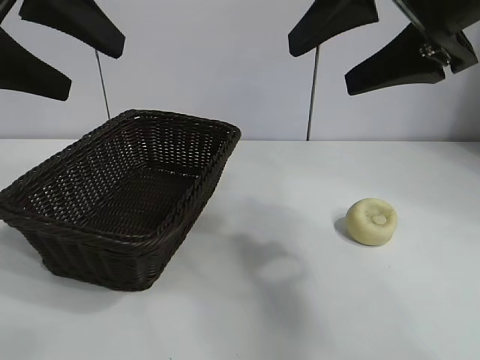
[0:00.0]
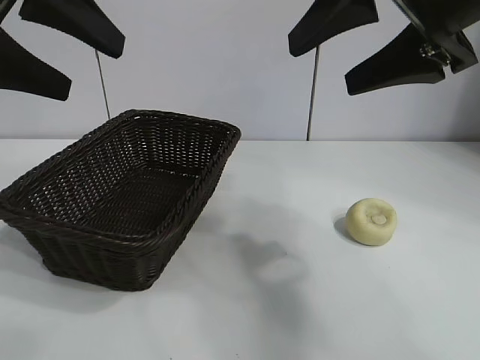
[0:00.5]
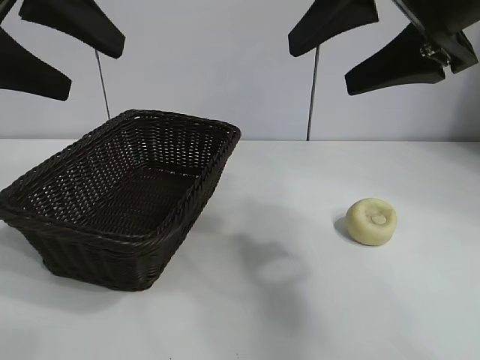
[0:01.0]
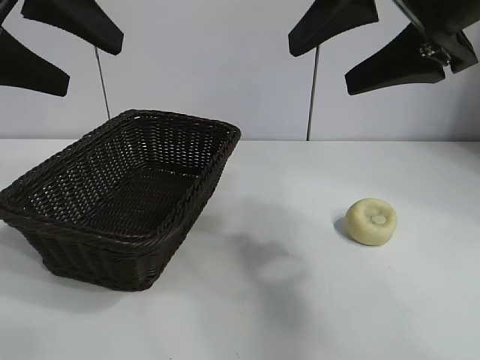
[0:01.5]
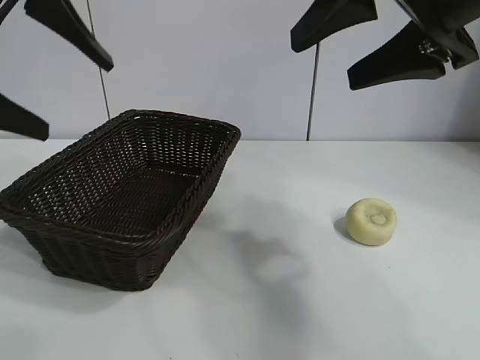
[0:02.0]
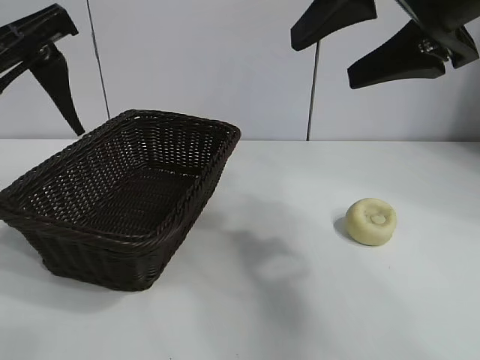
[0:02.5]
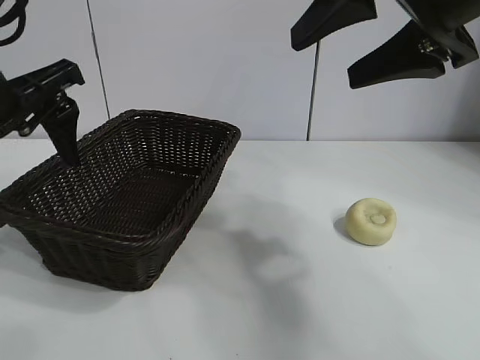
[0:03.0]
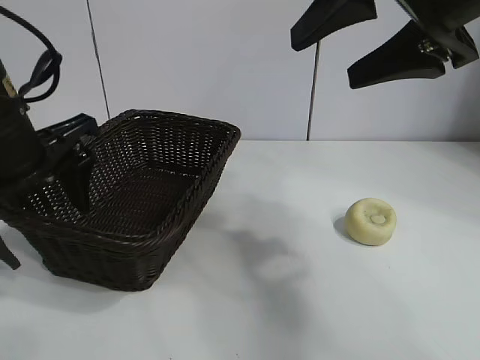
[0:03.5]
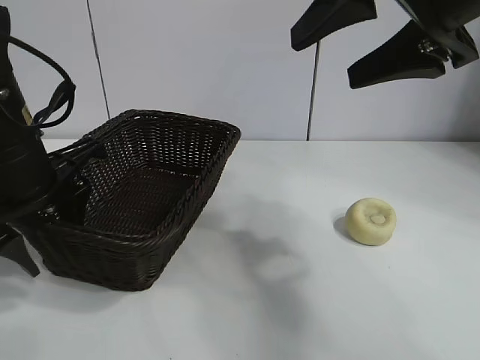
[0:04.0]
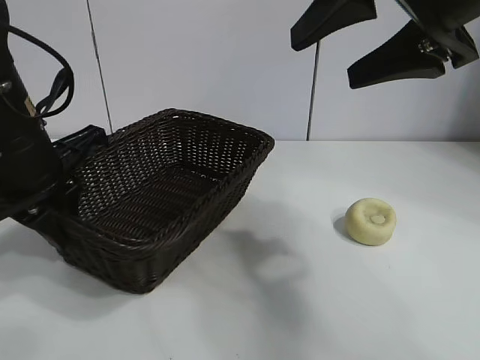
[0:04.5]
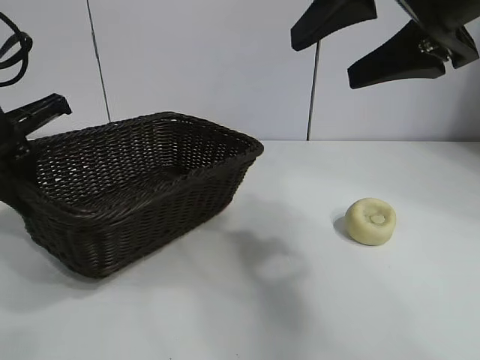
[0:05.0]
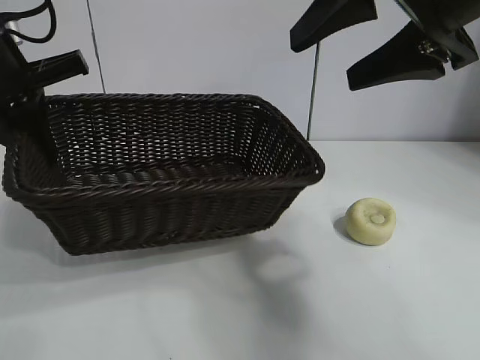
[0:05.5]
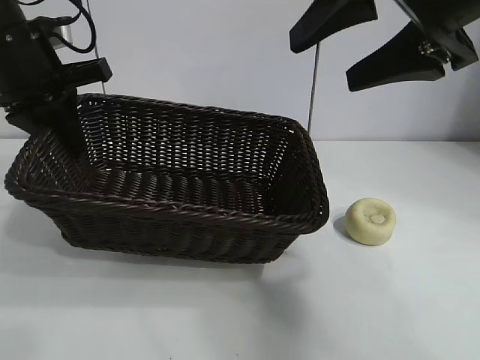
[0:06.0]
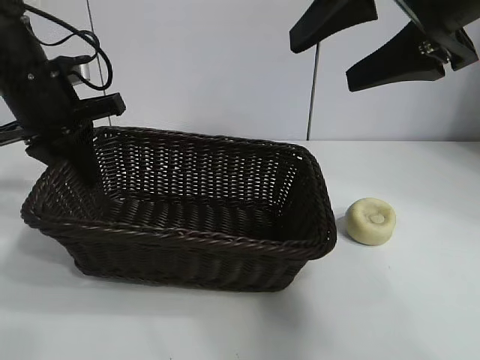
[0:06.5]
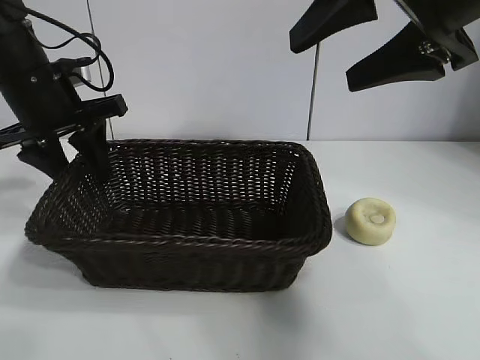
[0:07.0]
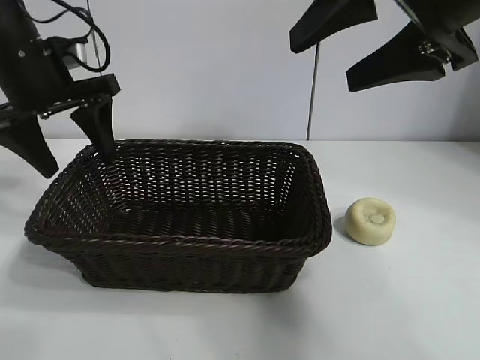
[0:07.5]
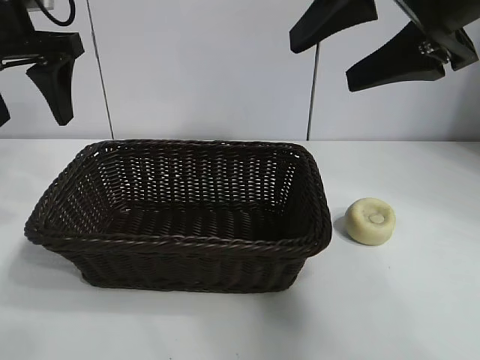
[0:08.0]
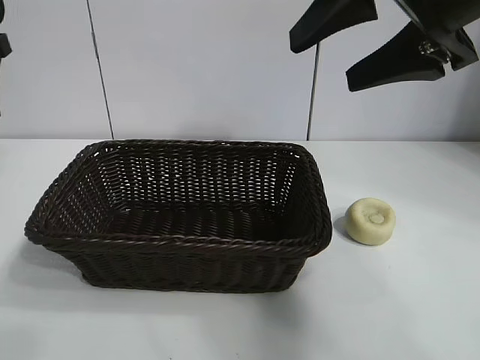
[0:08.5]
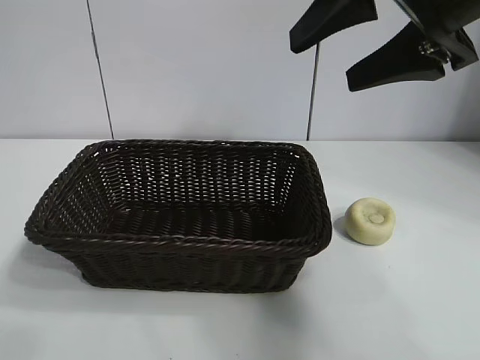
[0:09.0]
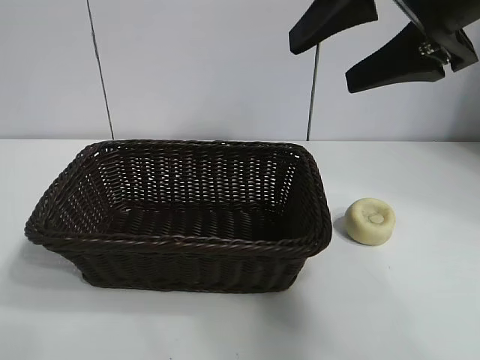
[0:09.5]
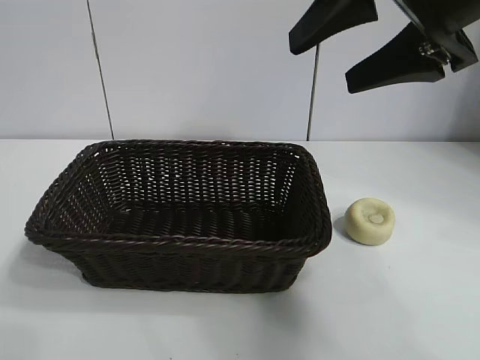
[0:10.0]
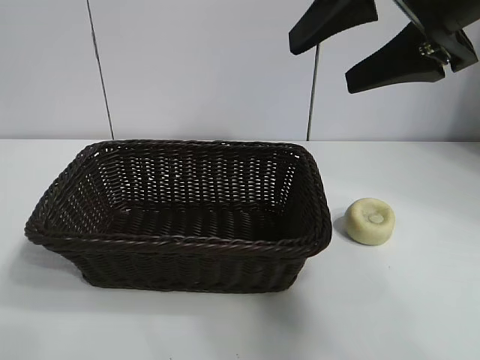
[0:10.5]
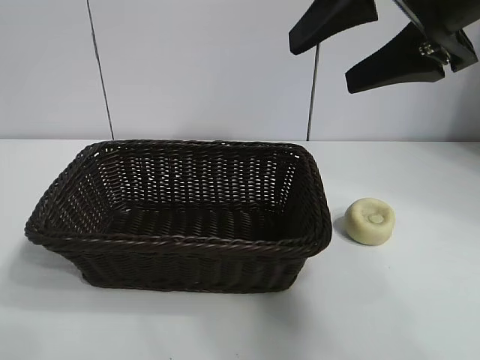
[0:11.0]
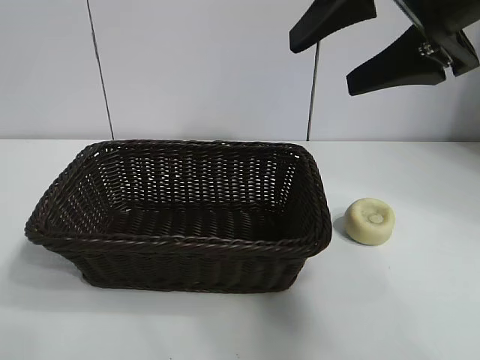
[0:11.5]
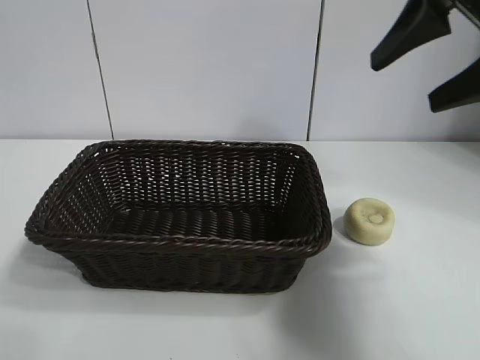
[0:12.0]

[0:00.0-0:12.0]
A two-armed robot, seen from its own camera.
Task of the whole recording: pick up the egg yolk pastry and put it into the basket.
Step, 0:01.5 to 0:04.0: Grasp the basket with left gripper.
Step, 0:04.5 to 0:07.0: Place the basket in the center of view with left gripper.

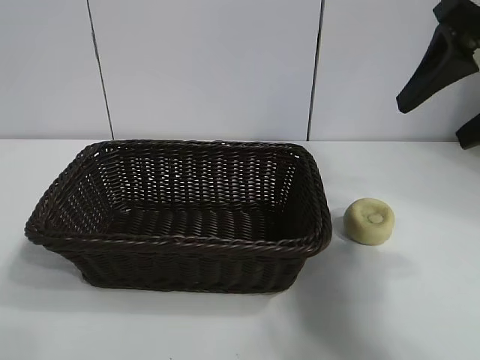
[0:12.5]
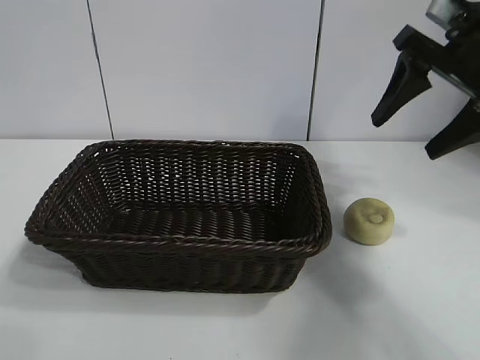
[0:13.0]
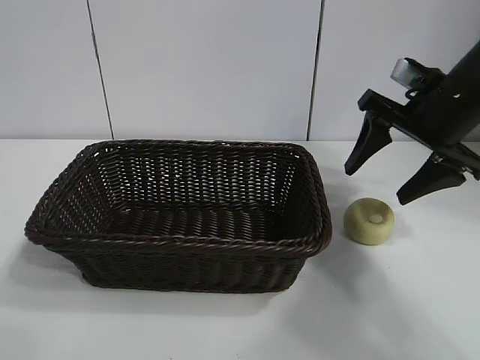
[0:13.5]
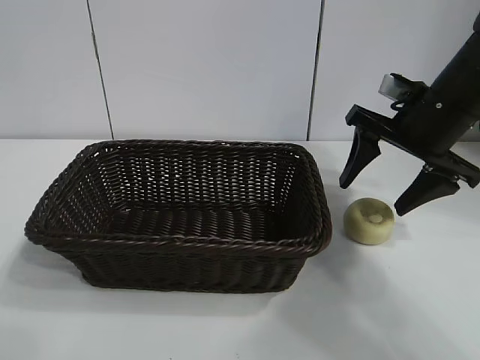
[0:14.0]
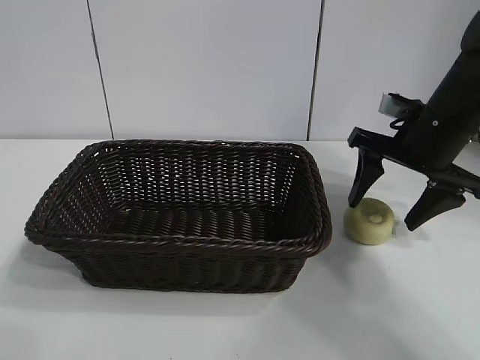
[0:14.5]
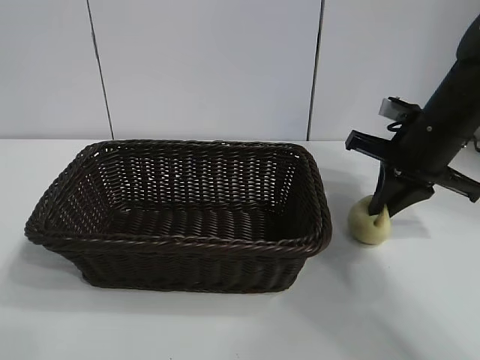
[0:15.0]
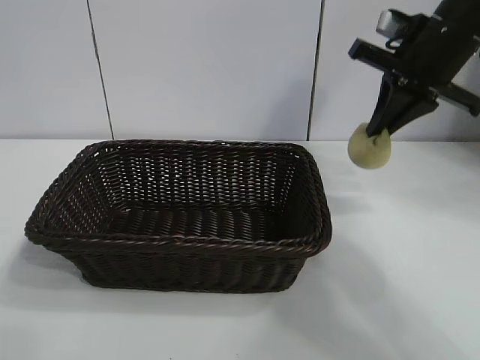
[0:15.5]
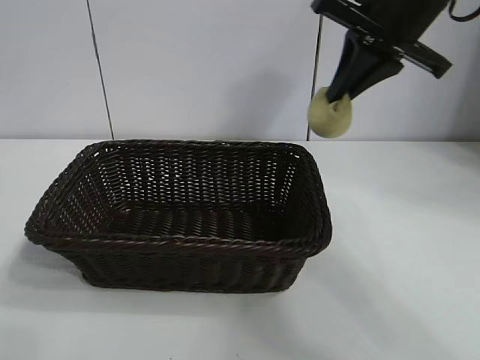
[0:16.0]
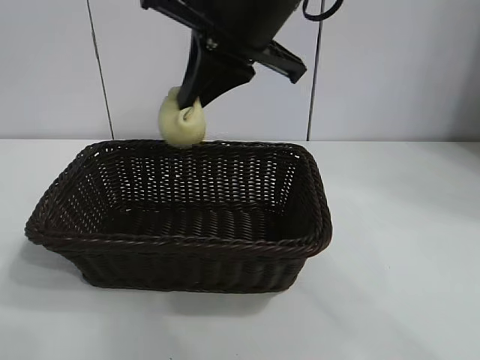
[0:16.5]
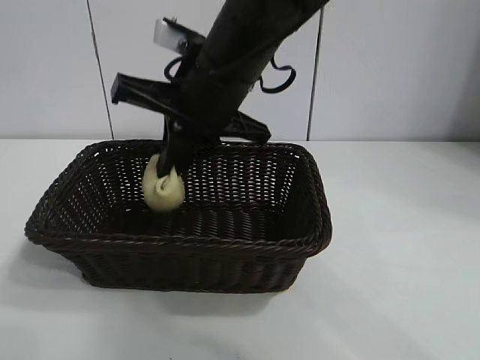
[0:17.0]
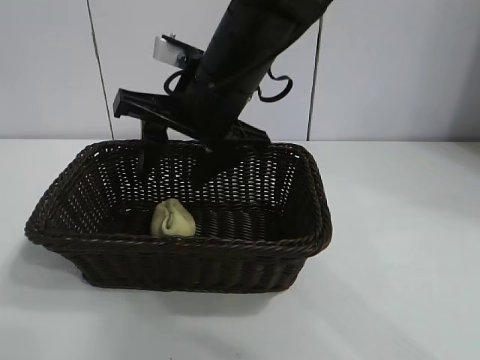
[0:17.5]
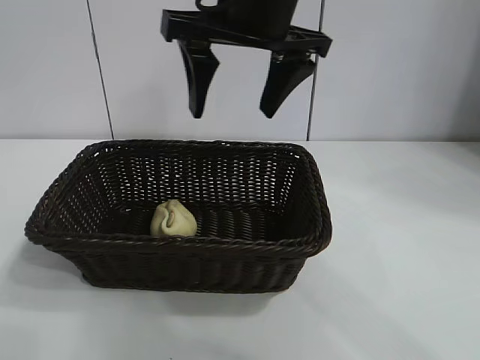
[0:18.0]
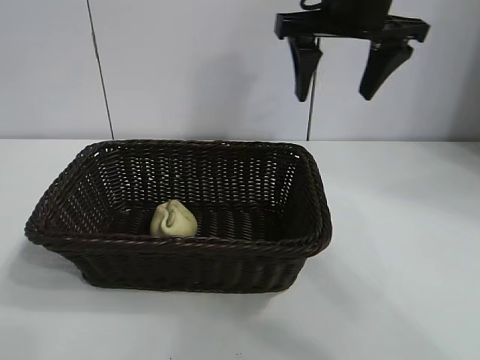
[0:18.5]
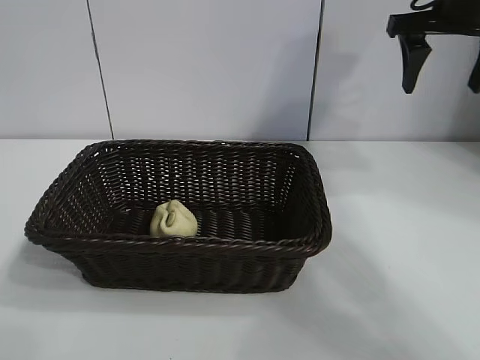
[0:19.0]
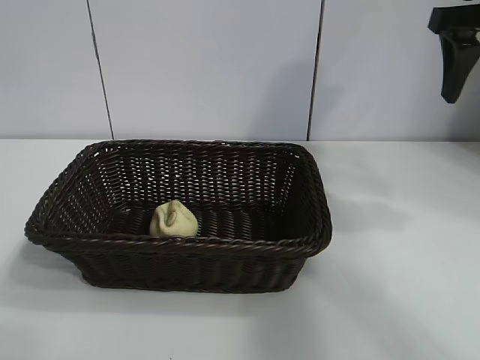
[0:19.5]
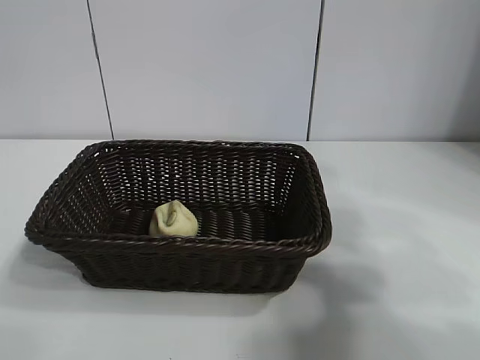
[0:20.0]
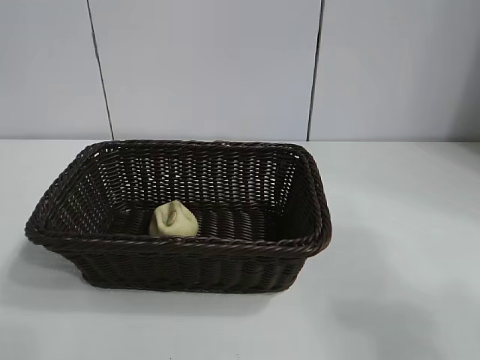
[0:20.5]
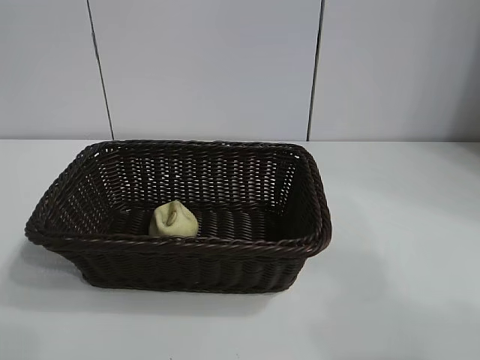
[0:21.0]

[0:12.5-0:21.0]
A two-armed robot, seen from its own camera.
Task of the whole recording: pick up the egg yolk pastry and put it into the basket.
Step, 0:12.5 to 0:15.0: Grasp egg yolk pastry with right gripper.
Step, 0:15.5 to 0:17.5: Place the egg yolk pastry in the basket with right gripper.

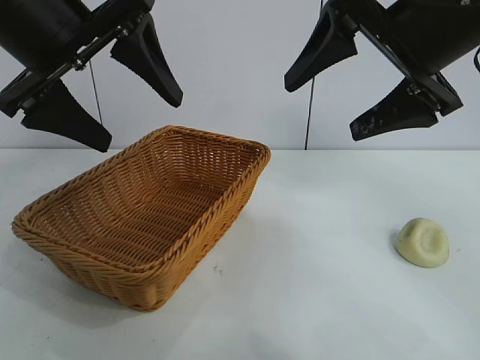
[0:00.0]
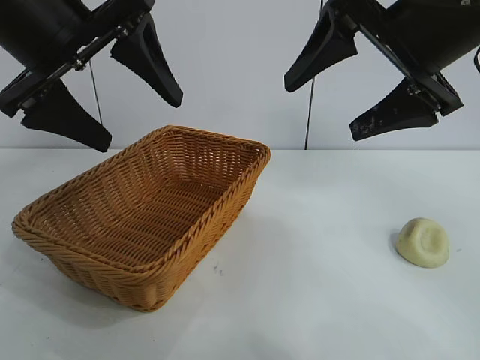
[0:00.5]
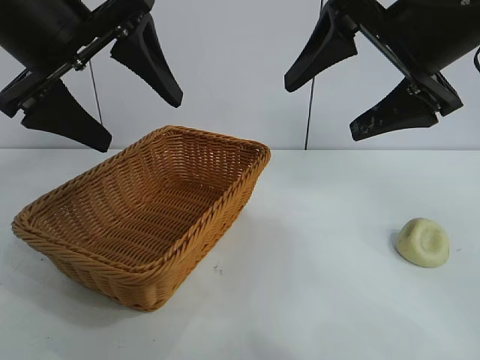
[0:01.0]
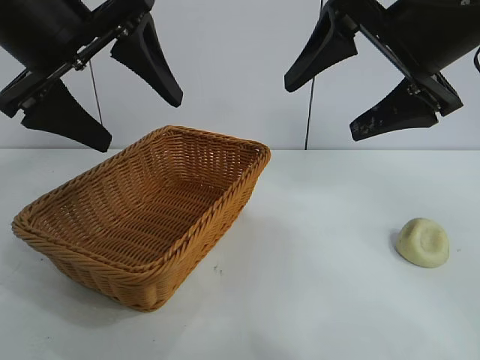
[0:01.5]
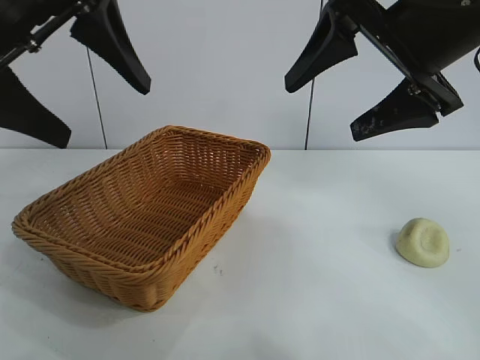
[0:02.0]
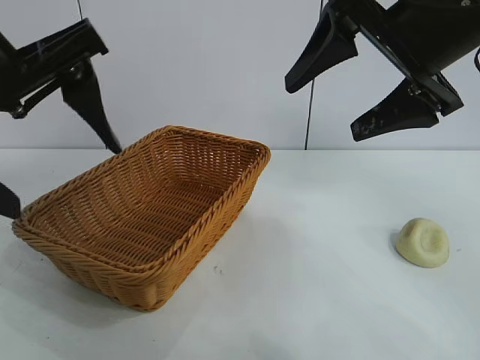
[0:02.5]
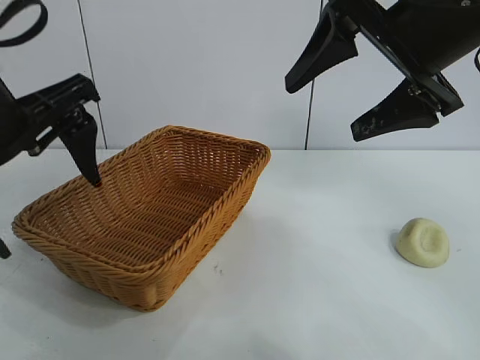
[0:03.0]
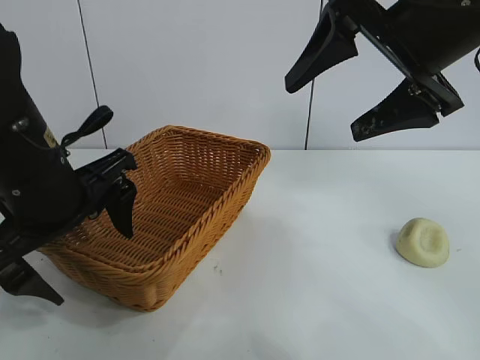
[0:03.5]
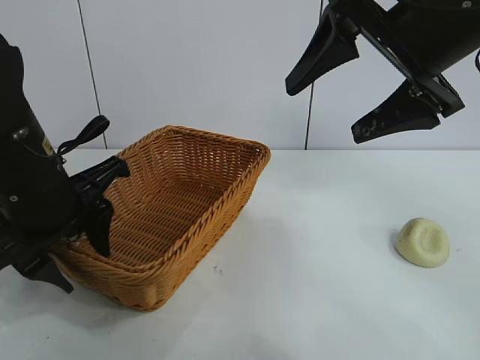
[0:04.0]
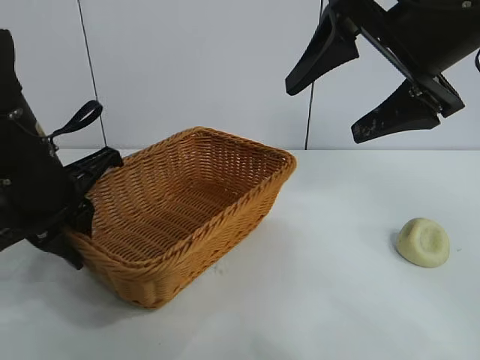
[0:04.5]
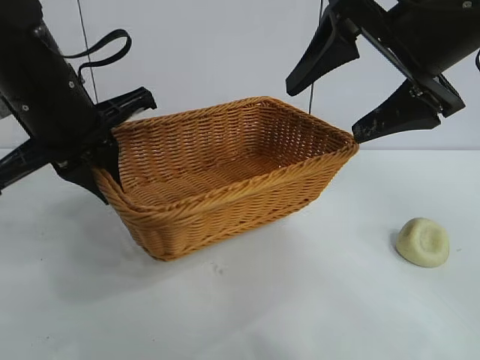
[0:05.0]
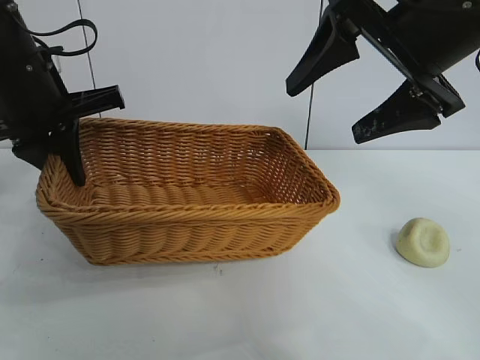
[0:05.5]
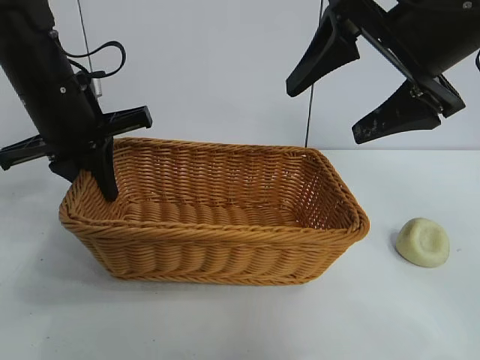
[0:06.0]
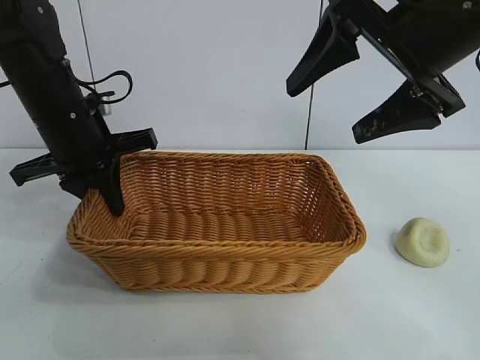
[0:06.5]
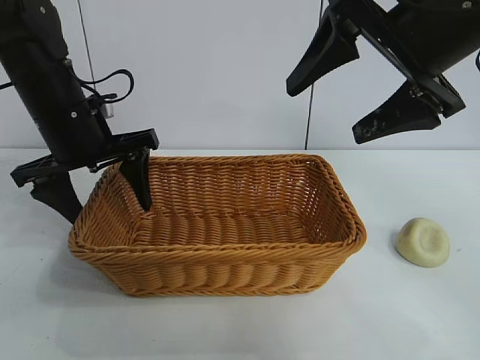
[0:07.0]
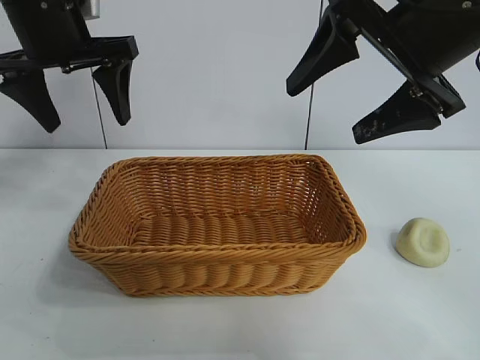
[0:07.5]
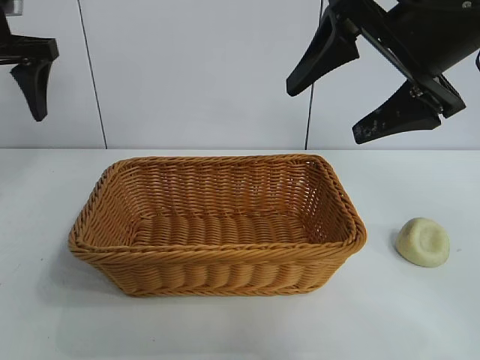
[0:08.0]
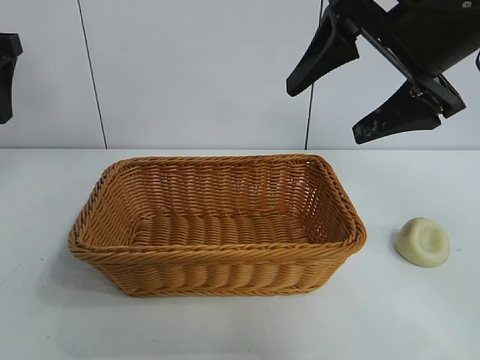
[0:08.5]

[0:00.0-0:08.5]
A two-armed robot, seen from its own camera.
Task of the whole recording: pick up the egg yolk pastry and put it into the basket.
Step, 0:02.0 to 0:04.0: Grasp the basket with left gripper.
Step, 0:05.0 to 0:07.0: Place the basket in the center of view with left gripper.
